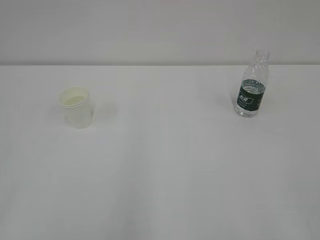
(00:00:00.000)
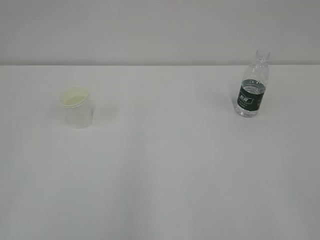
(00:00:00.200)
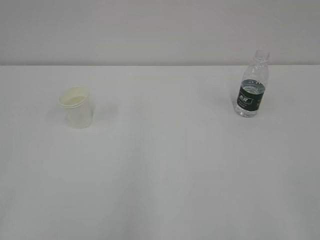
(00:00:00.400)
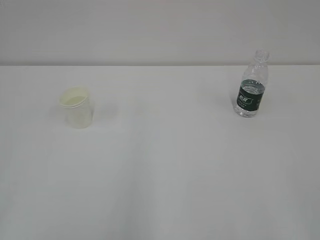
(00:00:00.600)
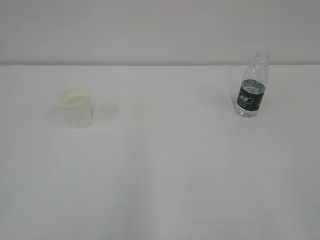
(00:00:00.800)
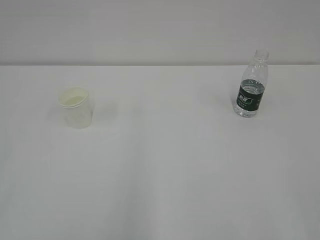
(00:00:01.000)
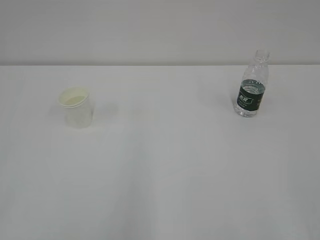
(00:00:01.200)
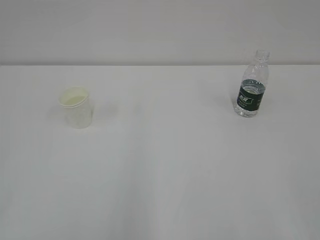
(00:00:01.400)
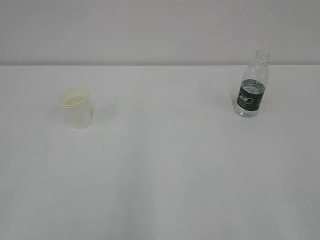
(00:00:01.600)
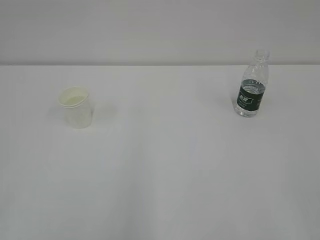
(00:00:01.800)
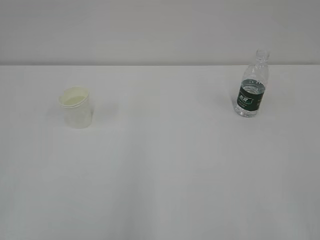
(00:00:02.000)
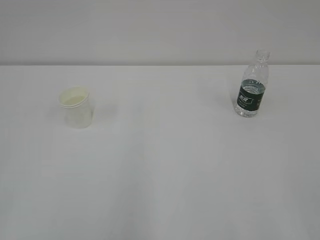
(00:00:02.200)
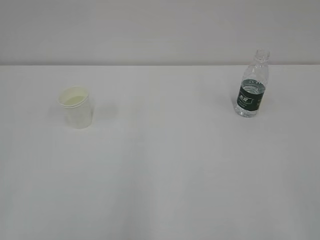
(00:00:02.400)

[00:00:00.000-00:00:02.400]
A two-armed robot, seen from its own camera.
00:00:00.000 to 00:00:02.400: Neither gripper changes place.
